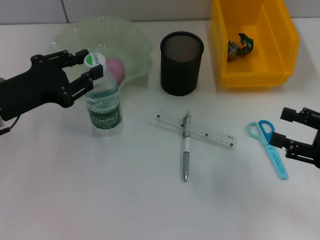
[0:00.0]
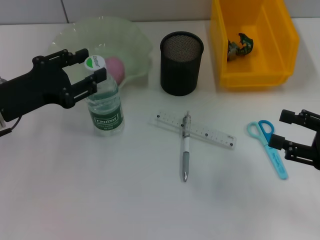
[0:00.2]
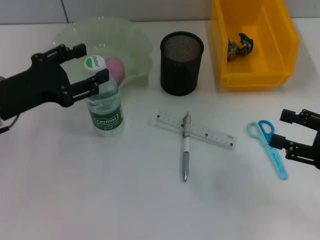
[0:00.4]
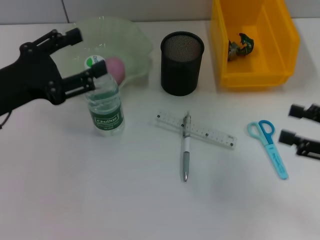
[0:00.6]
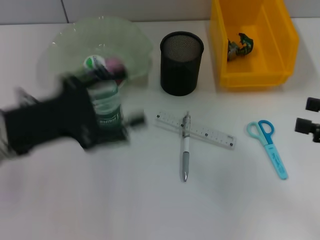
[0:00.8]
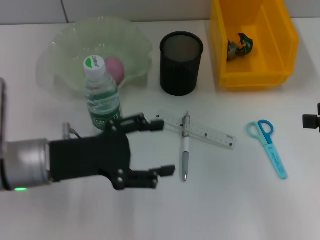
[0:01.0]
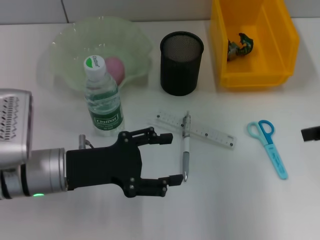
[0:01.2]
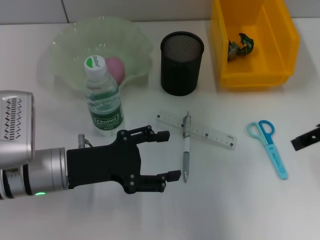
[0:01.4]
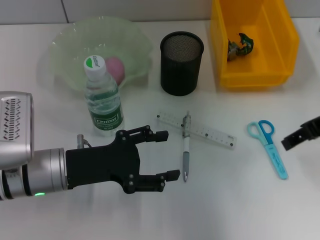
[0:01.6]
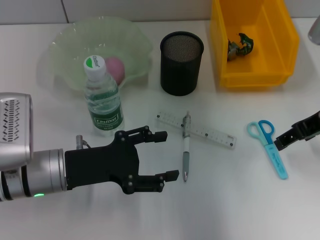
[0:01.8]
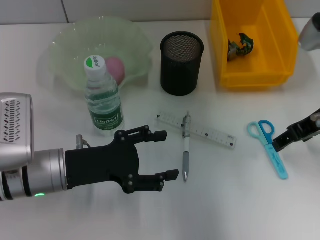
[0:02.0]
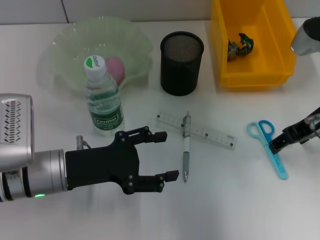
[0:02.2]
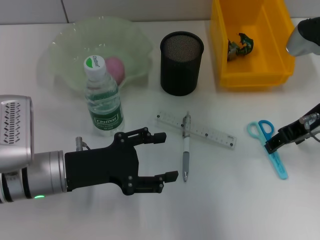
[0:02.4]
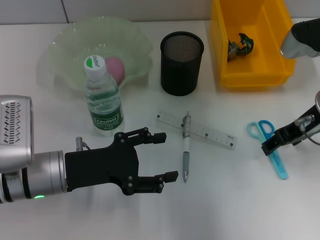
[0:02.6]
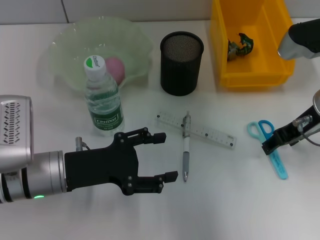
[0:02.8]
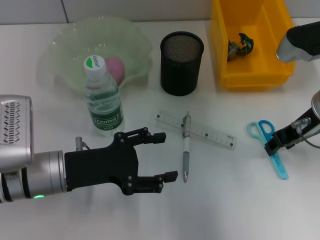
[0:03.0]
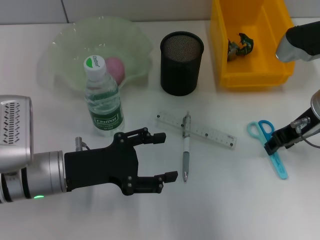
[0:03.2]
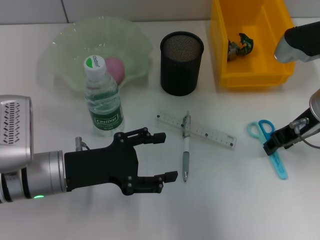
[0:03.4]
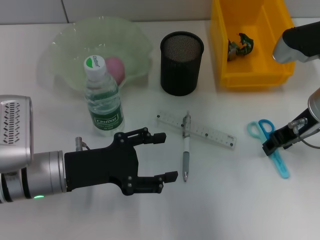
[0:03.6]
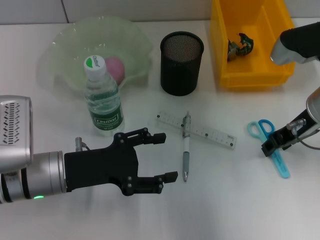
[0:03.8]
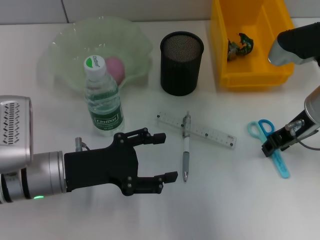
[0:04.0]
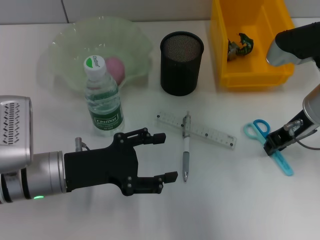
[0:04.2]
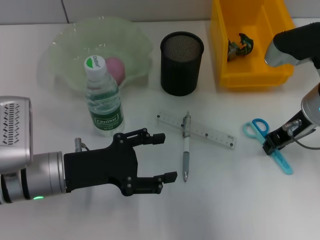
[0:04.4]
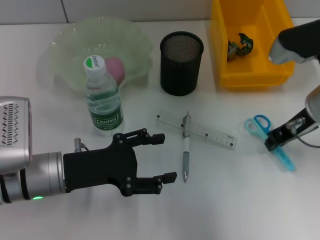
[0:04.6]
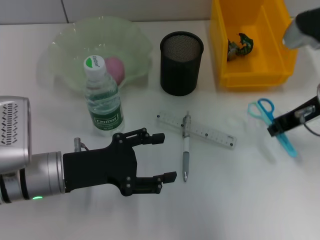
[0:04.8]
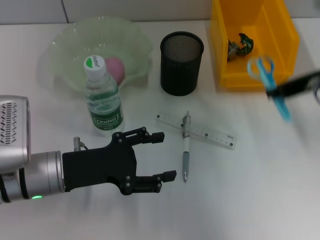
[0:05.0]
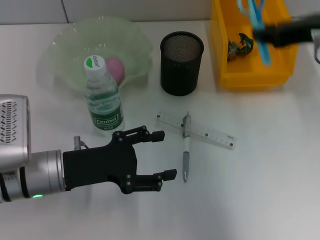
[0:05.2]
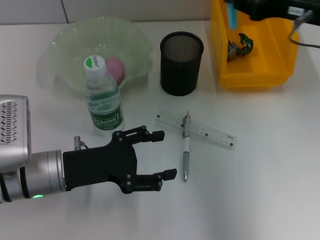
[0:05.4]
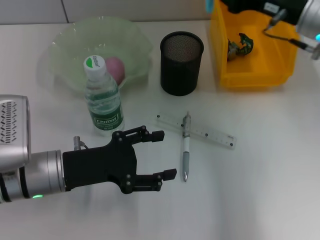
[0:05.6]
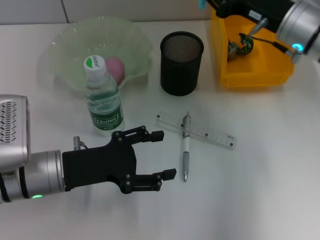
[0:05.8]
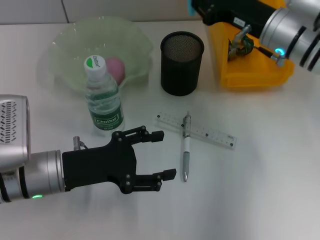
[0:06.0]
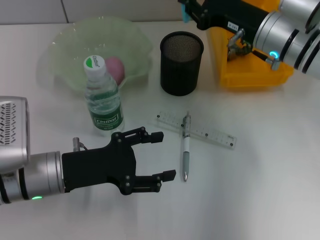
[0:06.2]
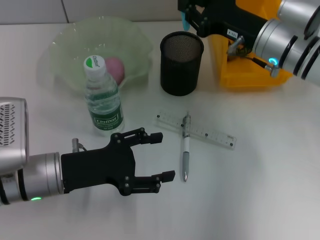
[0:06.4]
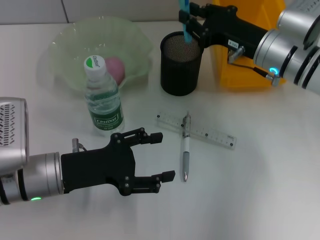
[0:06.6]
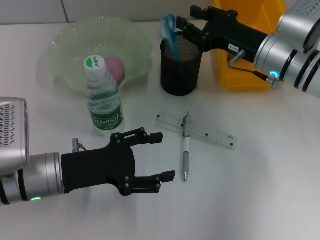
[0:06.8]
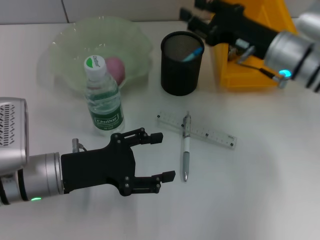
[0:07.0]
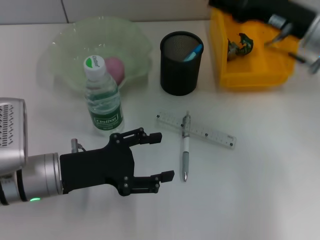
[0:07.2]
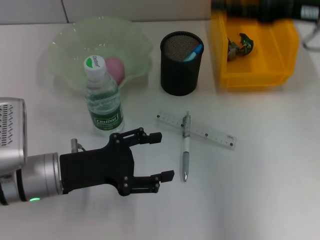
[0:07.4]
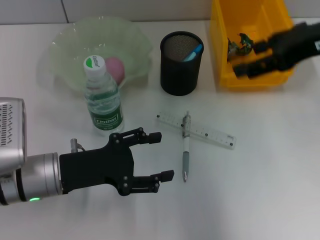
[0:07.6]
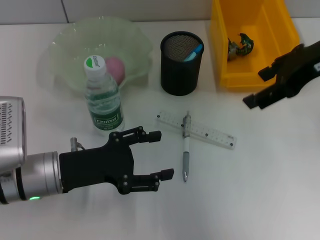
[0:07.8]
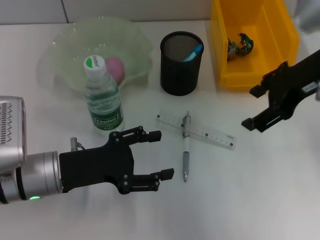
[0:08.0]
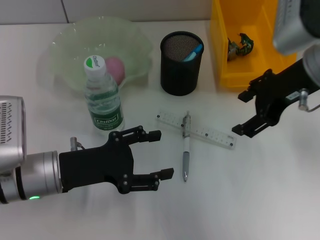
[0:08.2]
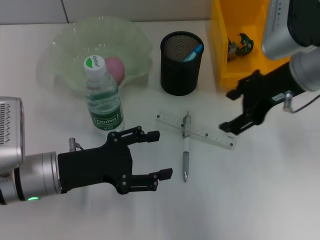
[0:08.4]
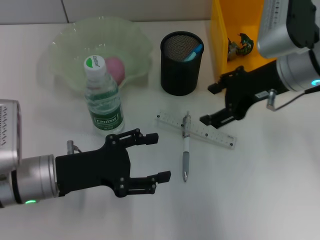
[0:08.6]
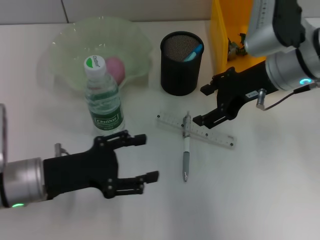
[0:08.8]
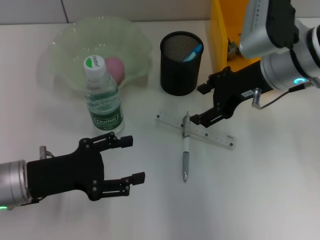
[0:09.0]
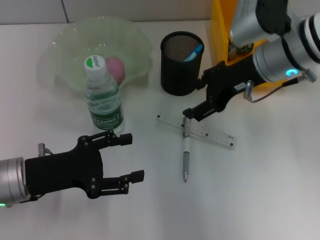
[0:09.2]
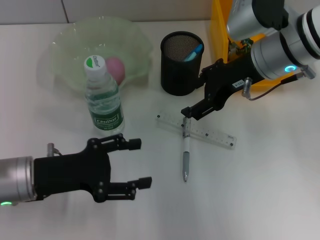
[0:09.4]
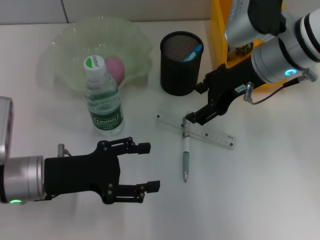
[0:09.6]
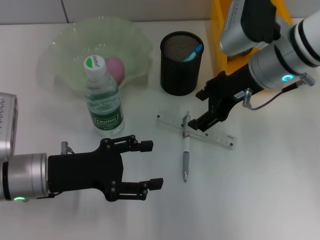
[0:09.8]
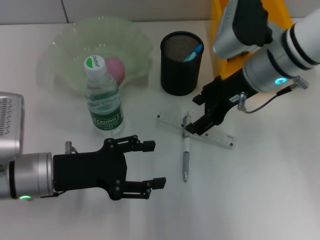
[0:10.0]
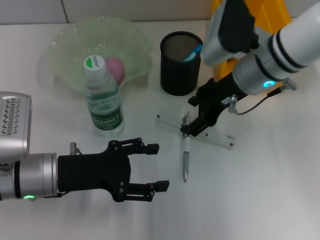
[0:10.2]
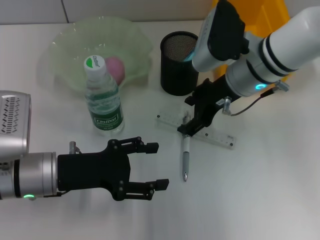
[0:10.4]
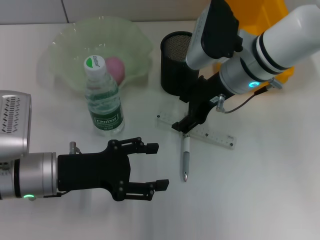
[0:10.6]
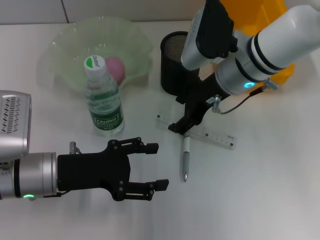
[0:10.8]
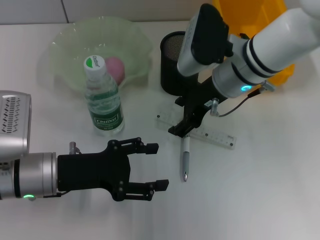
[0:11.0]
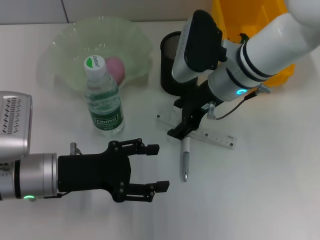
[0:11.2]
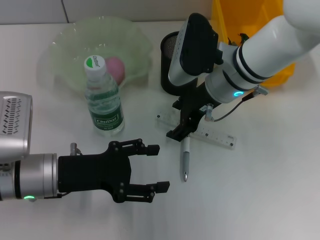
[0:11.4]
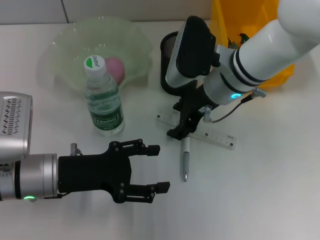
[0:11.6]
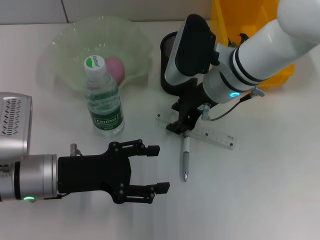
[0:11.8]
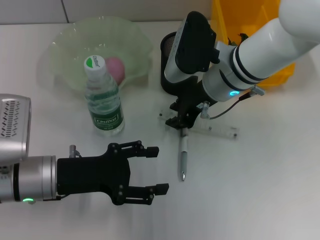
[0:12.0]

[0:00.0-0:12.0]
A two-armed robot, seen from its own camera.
Step, 0:01.2 to 0:03.8: Grab the blue scissors with the right hand.
Step, 0:04.0 to 0:07.0: Place the blue scissors into the pen holder with the right hand.
0:00.0 to 0:01.6: The left gripper heads to the right and downward, covering about 10 cm, and opens its fingers, while the right gripper shifts about 15 cm upward, forward and to the left.
0:01.6 to 0:03.0: The right gripper goes approximately 5 cm downward.
0:03.0 to 0:04.4: The right gripper closes its fingers.
0:04.4 to 0:06.0: The right gripper is displaced forward by some 5 cm, and reaches about 10 cm upward, then returns.
0:06.0 to 0:07.6: The right gripper is displaced upward, backward and to the right by about 15 cm, and opens.
0:07.6 to 0:09.0: The right gripper is displaced downward and to the left by roughly 10 cm.
0:09.0 to 0:10.4: The right gripper ends up some 5 cm from where it was.
0:10.4 to 0:12.0: The right gripper closes.

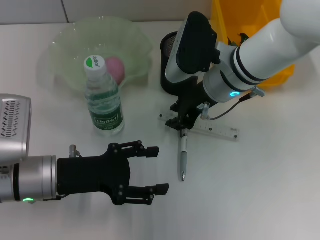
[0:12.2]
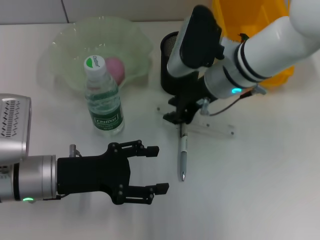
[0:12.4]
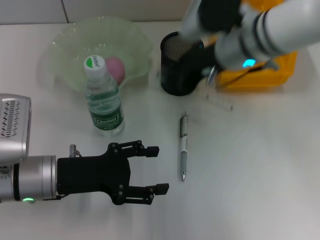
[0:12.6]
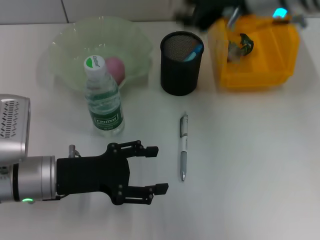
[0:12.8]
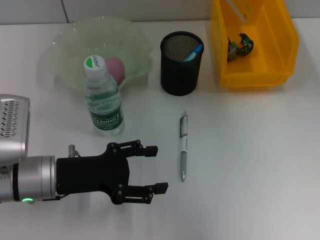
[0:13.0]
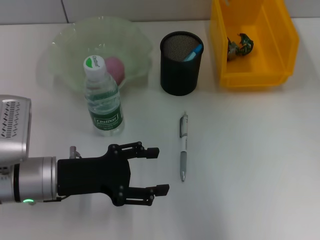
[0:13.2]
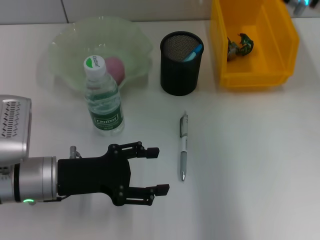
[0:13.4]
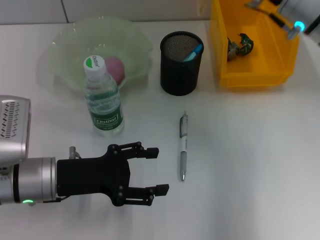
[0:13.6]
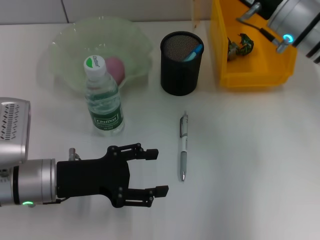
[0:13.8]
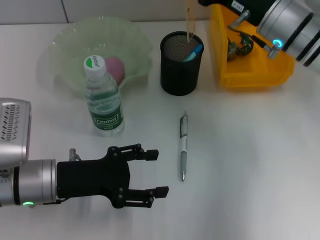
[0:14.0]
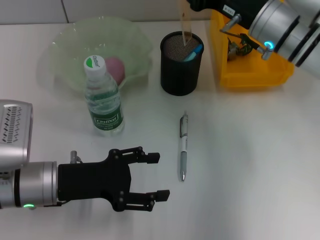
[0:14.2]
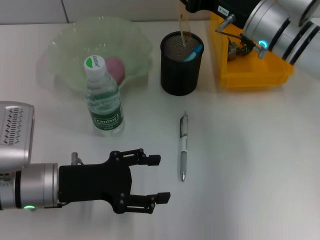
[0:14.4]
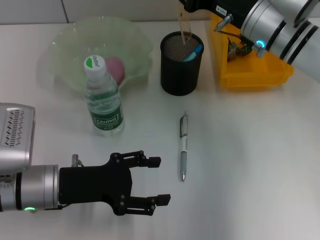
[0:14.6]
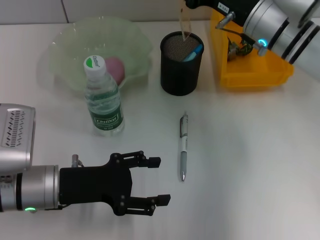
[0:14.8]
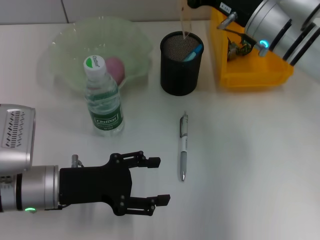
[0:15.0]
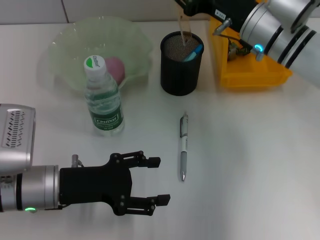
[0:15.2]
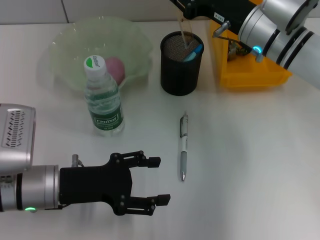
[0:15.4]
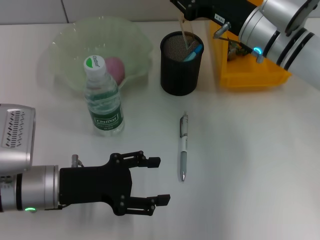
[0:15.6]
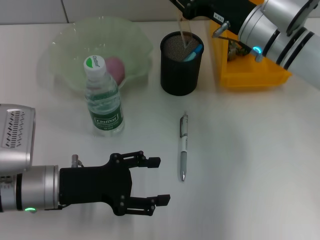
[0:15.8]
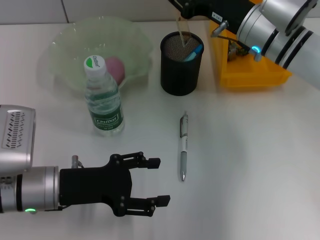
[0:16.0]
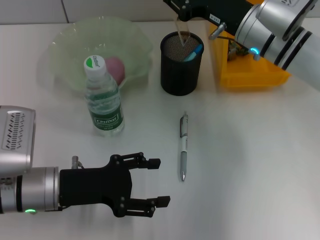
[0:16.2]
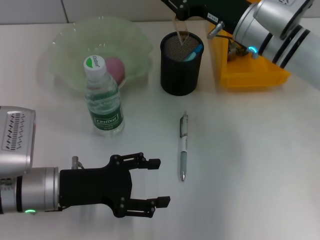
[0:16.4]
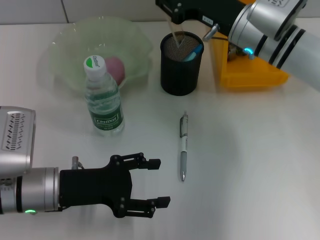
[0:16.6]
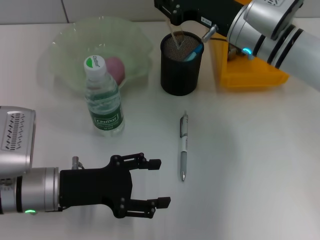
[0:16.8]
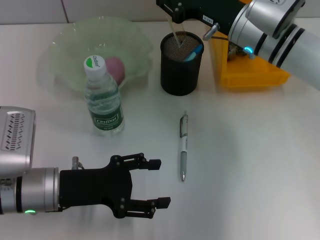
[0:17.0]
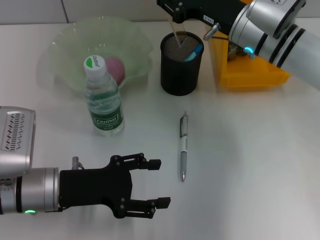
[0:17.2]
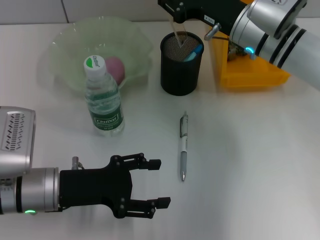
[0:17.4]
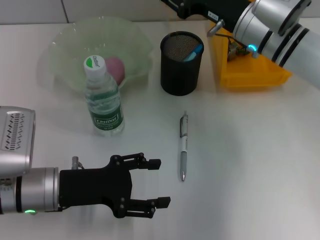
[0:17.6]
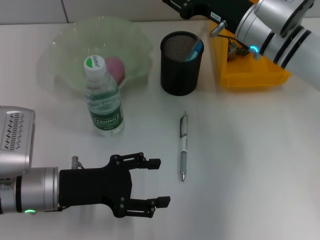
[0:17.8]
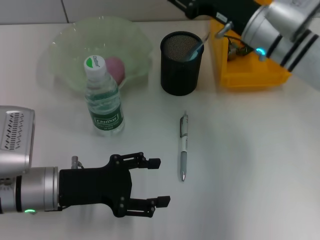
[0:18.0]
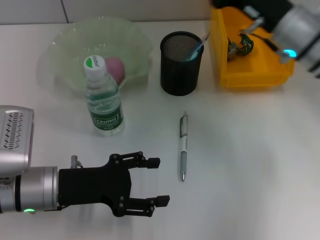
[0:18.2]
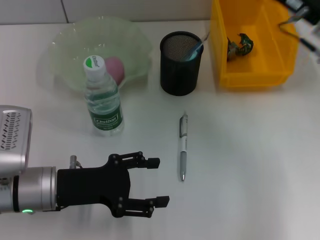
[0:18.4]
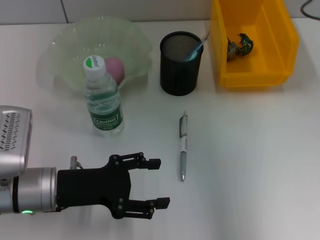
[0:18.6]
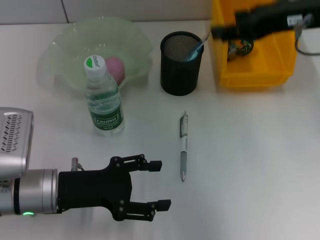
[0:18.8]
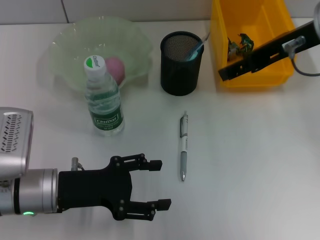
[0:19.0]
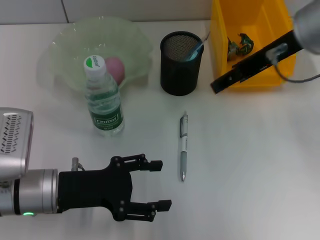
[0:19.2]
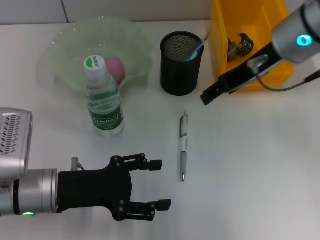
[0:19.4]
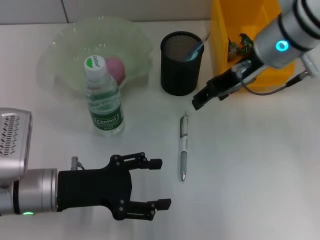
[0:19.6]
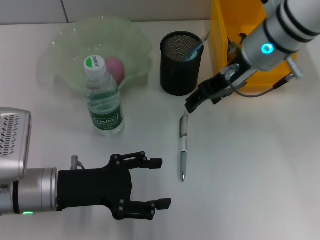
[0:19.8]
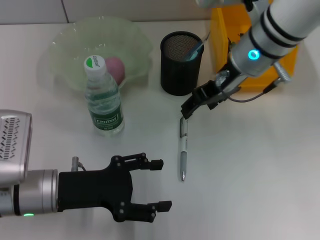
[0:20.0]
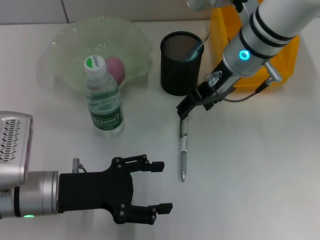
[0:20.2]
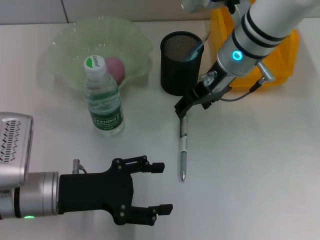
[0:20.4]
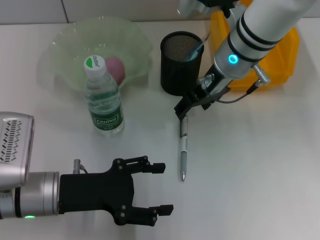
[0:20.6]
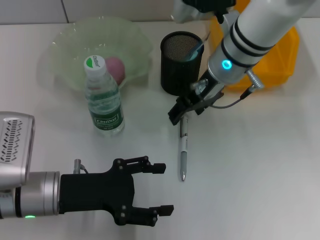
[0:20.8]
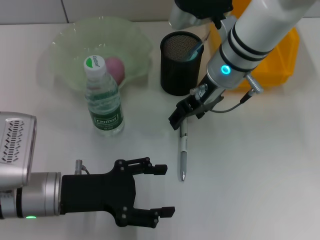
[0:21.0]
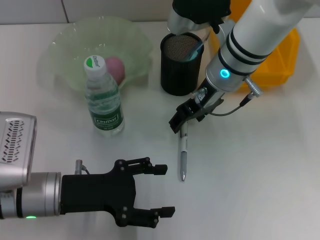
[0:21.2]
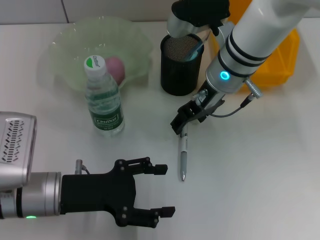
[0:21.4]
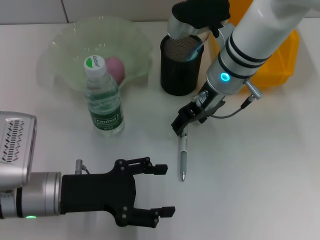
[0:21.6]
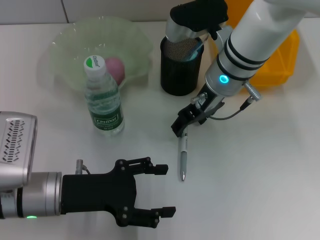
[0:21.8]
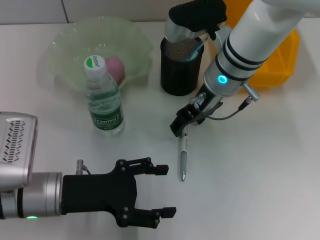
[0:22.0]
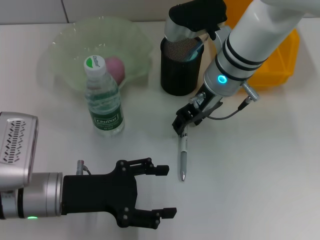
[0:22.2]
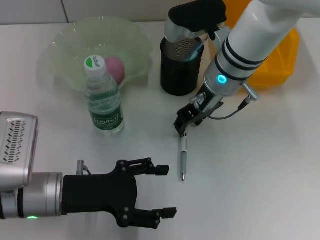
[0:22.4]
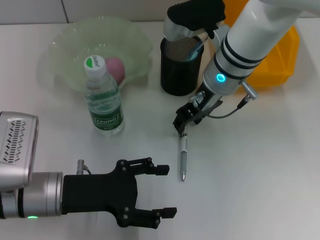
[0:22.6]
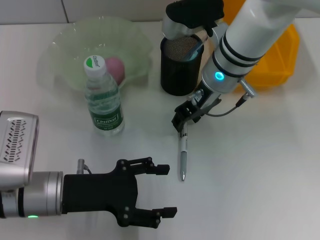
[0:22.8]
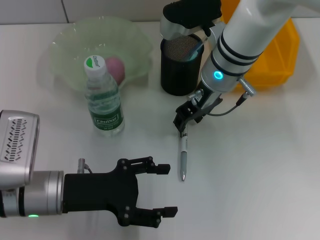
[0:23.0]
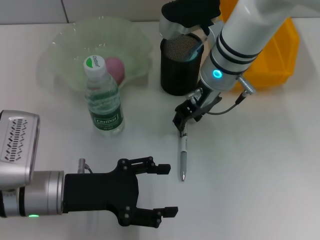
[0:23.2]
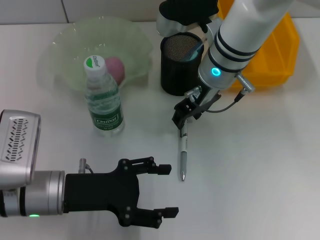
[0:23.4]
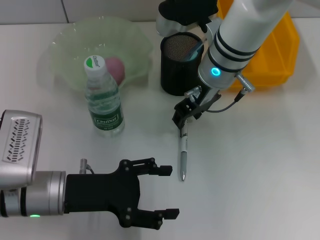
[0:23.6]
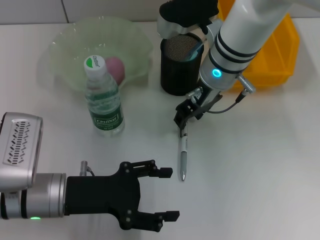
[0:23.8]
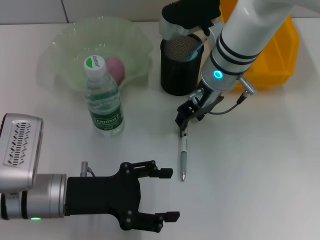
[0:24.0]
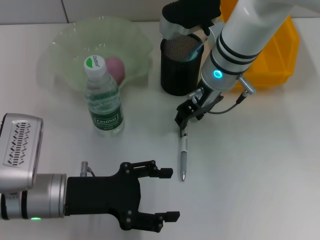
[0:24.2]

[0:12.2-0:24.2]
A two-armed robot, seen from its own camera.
Step, 0:12.4 to 0:18.4: Place the ruler into the pen holder with the right hand.
0:12.2 to 0:13.8: The right gripper is displaced to the right by roughly 10 cm, and reaches roughly 15 cm upward, then returns.
0:13.8 to 0:16.6: There are only small adjustments of the grippers.
0:16.6 to 0:18.2: The right gripper ends up approximately 5 cm from where it was.
0:18.2 to 0:19.8: The right gripper heads to the left, covering approximately 5 cm.
0:19.8 to 0:21.2: The right gripper moves roughly 5 cm.
0:21.2 to 0:22.6: Both grippers stay put.
0:22.6 to 0:24.2: The two grippers keep their place.
